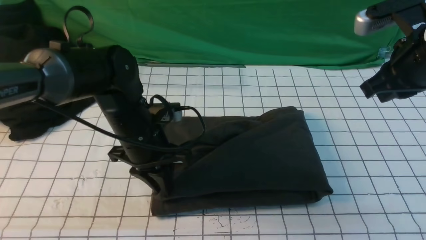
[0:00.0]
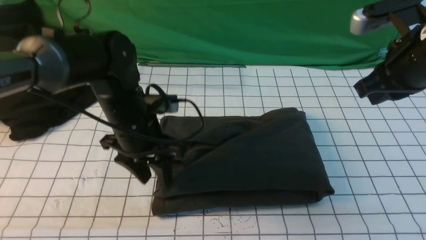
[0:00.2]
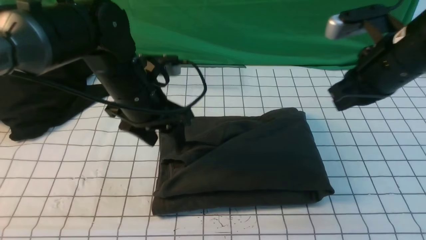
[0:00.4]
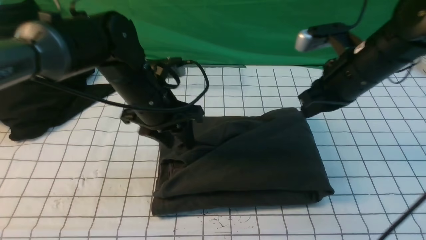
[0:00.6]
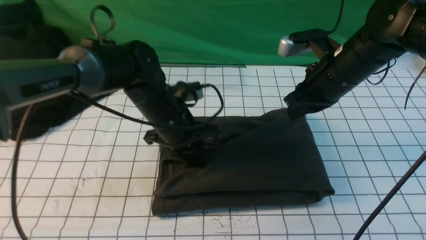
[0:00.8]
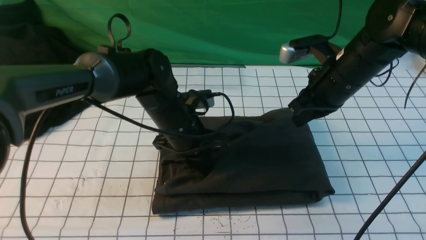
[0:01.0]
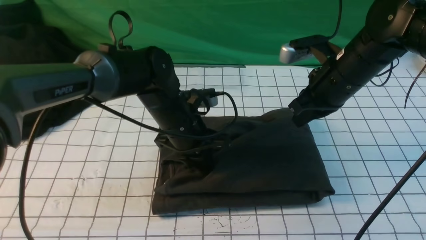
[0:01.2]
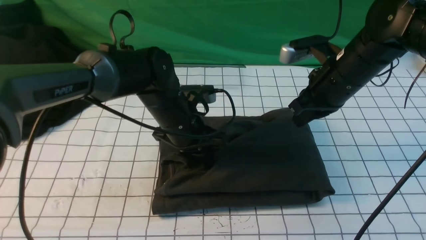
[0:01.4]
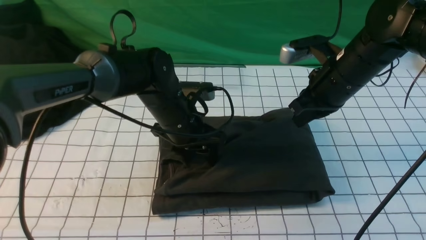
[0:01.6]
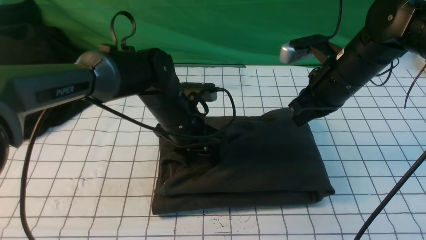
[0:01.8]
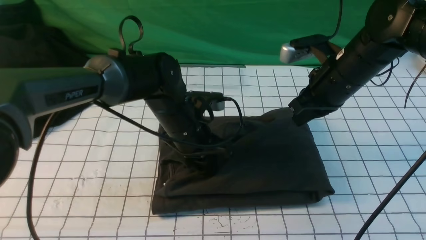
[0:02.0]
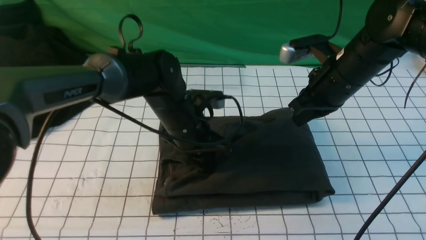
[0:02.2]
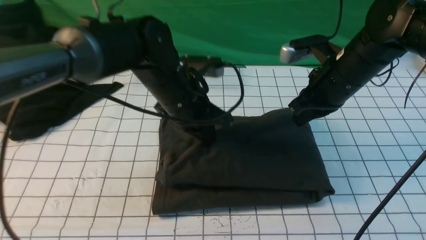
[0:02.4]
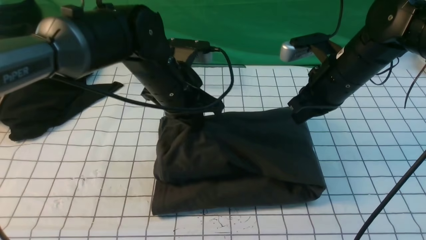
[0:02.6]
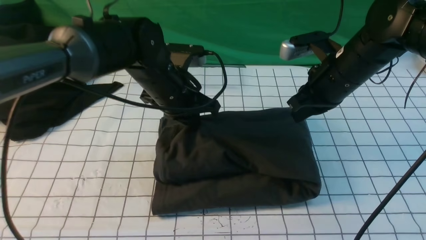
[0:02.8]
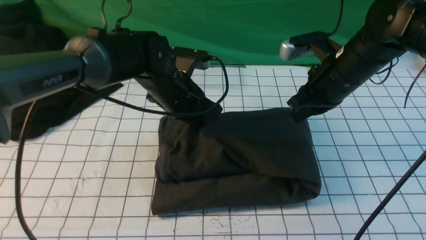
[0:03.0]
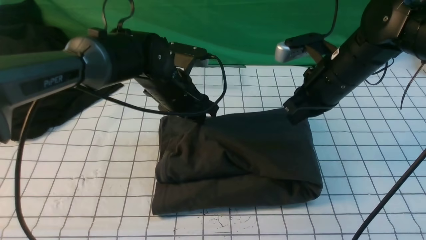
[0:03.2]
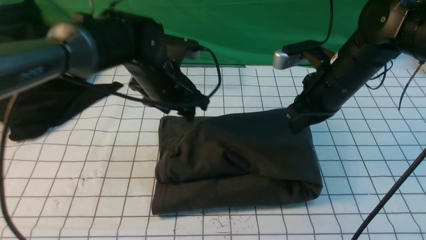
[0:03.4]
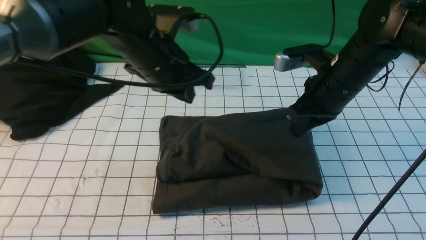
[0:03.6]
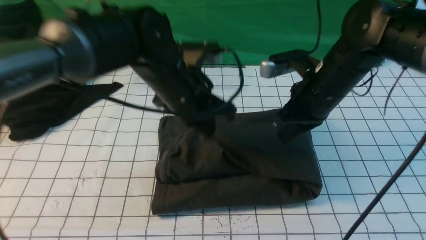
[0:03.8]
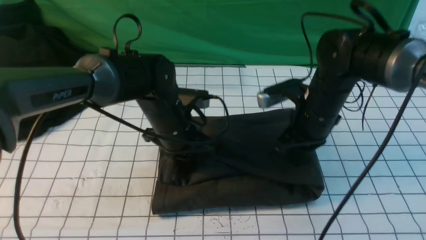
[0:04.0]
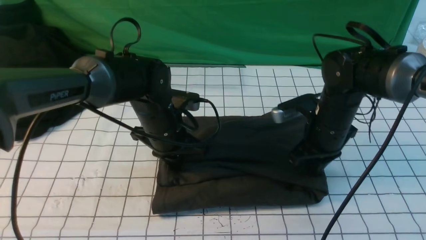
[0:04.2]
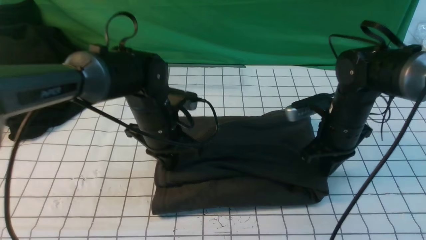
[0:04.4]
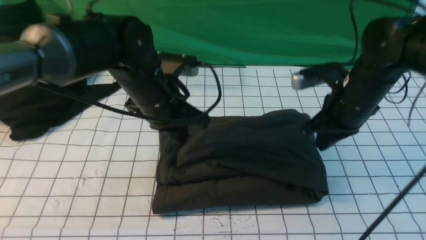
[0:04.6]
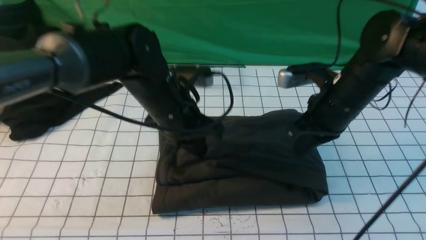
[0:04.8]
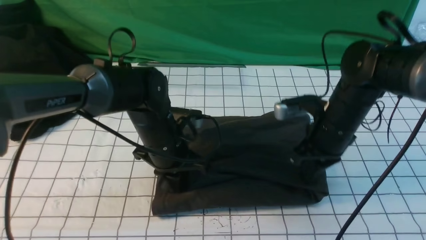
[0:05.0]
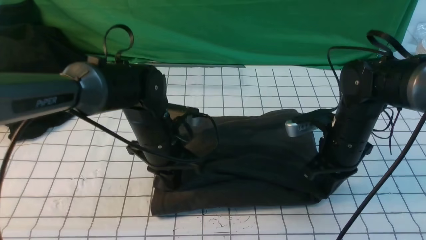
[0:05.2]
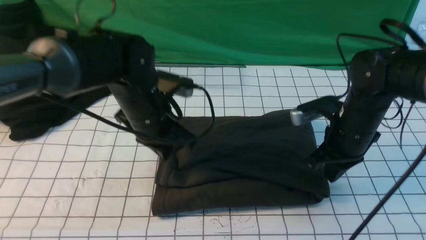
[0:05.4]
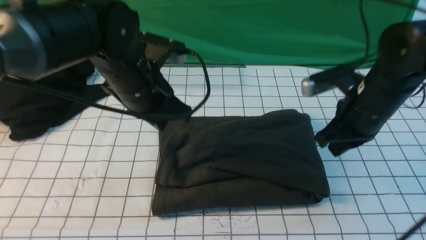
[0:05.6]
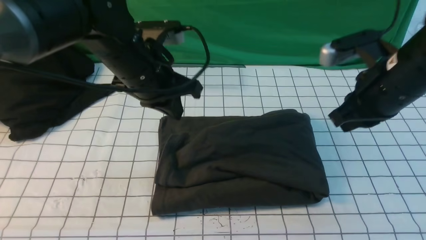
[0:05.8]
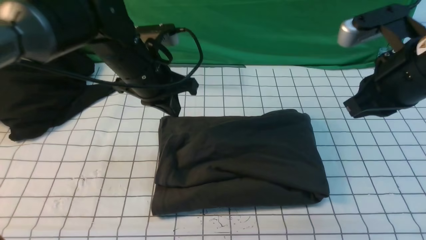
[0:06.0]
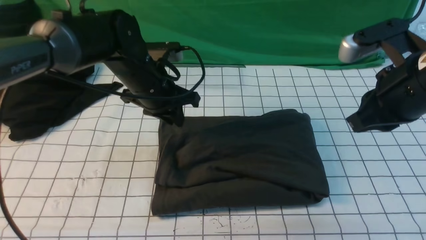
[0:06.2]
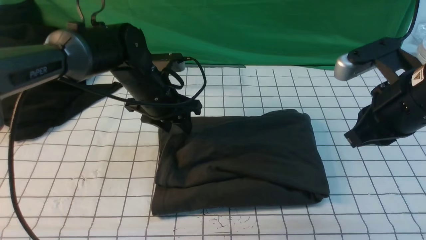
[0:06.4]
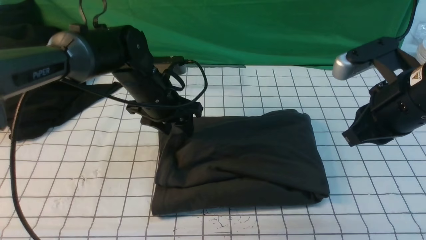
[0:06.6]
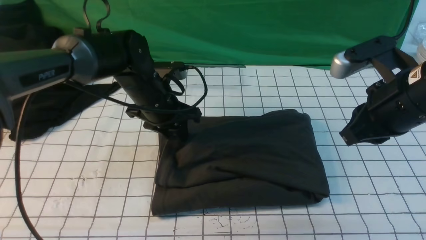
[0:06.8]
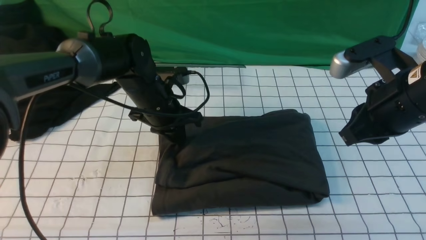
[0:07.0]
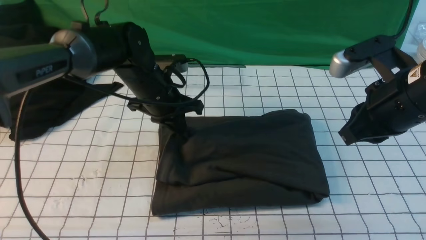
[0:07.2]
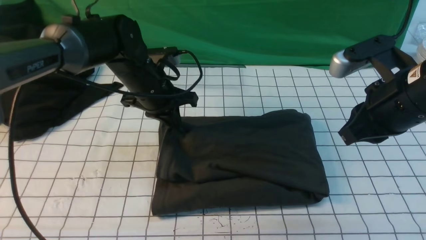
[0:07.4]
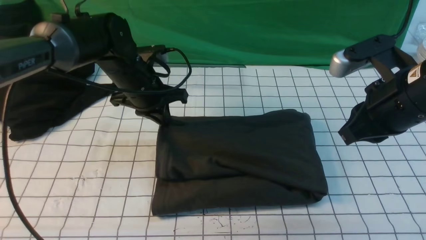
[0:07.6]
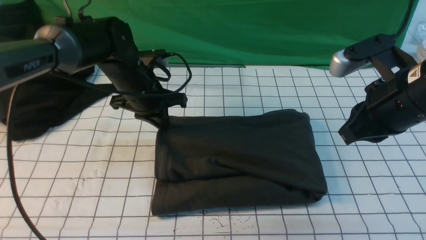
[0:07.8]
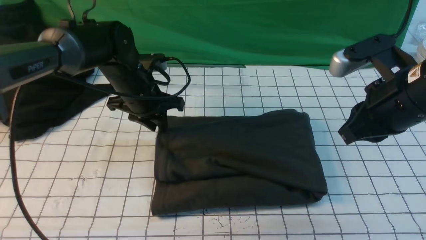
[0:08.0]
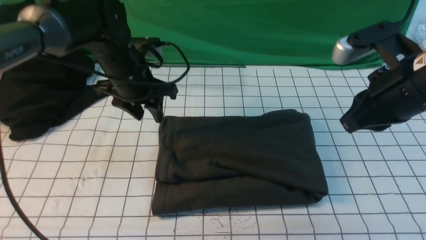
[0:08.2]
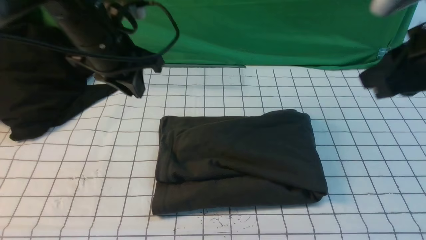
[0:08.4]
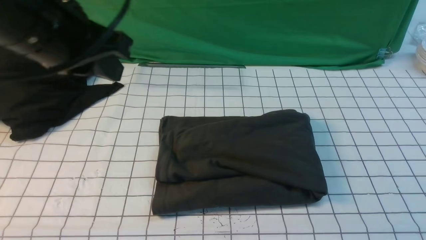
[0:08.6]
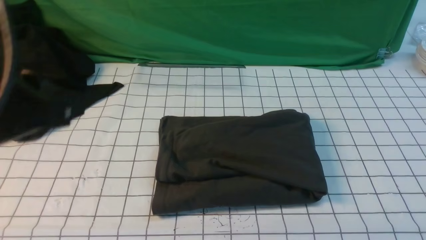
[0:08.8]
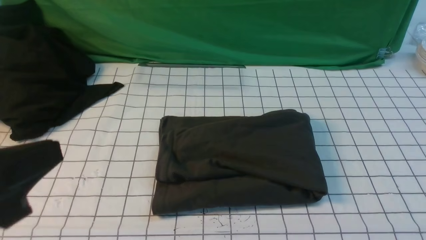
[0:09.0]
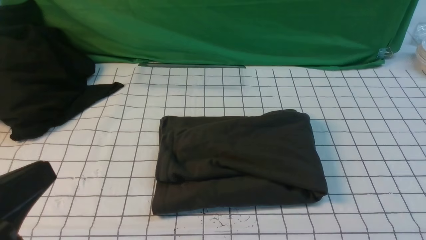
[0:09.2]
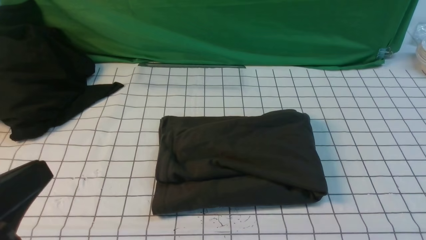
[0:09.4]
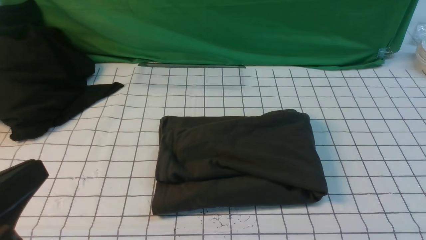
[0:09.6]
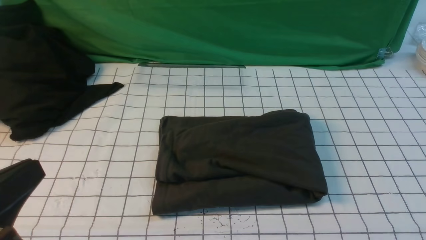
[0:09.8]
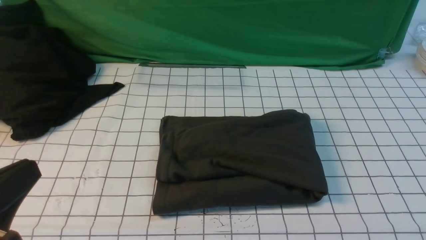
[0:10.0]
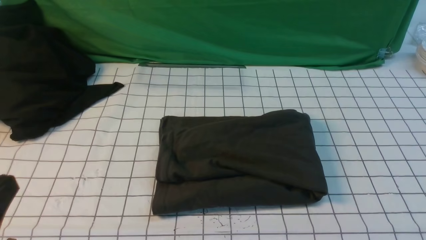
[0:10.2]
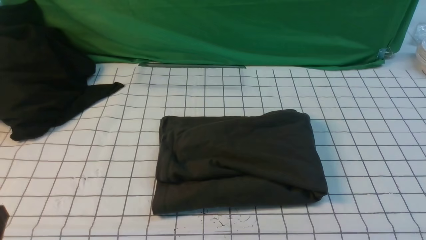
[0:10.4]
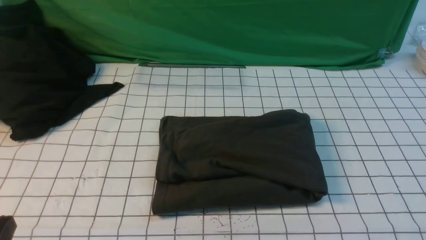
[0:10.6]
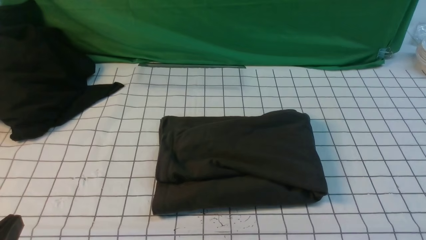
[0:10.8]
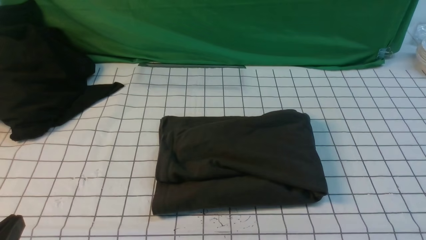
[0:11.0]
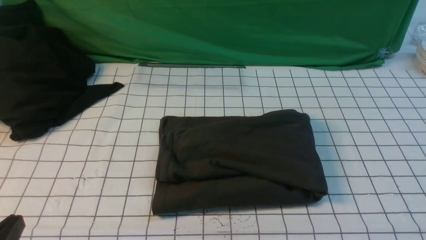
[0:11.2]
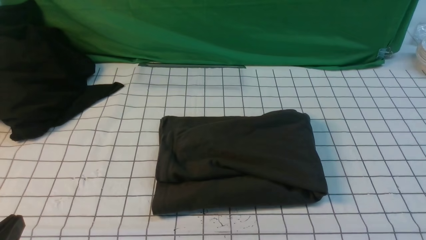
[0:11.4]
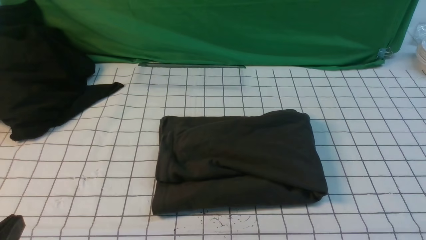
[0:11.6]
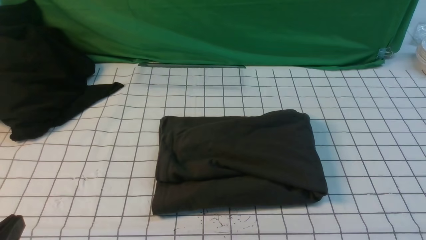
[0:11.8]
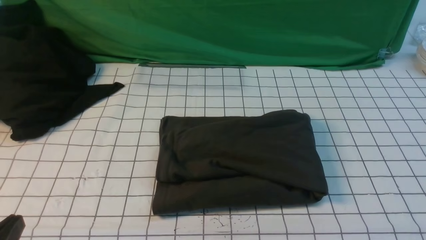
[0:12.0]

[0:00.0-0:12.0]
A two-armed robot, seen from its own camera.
0:00.0 to 0:01.6: The right gripper moves downward, to the left and forward, about 10 cm. The left gripper travels to the right by some 5 cm, and opens.
0:01.6 to 0:03.0: The left gripper closes its fingers.
0:03.0 to 0:04.4: The left gripper goes upward and returns, approximately 5 cm each way, and closes. The right gripper travels downward by some 5 cm.
0:04.4 to 0:06.0: The right gripper shifts about 15 cm upward and backward. Meanwhile the left gripper travels upward by some 5 cm.
0:06.0 to 0:07.6: The left gripper moves some 5 cm, and opens, then closes once more.
0:07.6 to 0:09.0: The left gripper is displaced backward by about 35 cm, and opens, then closes again. Meanwhile the right gripper moves backward and to the right, about 25 cm.
0:09.0 to 0:10.4: The left gripper travels downward by some 15 cm.

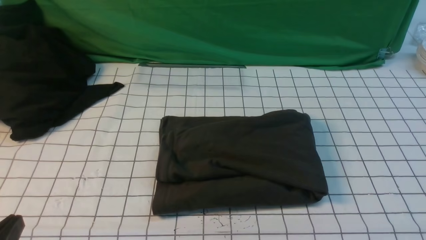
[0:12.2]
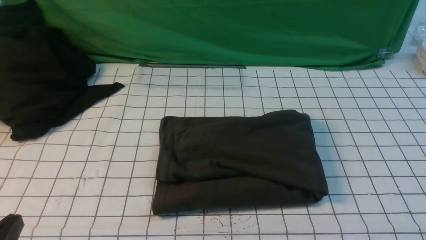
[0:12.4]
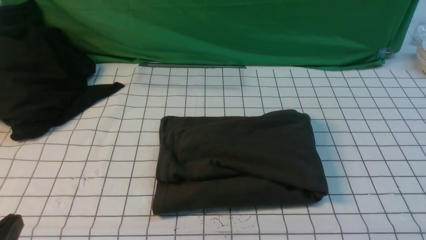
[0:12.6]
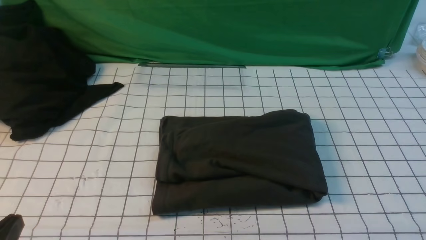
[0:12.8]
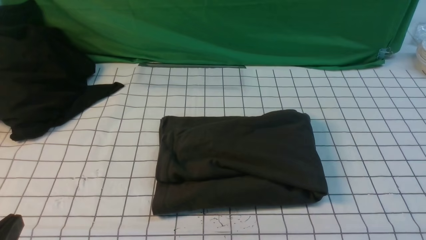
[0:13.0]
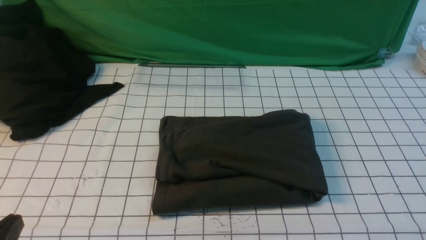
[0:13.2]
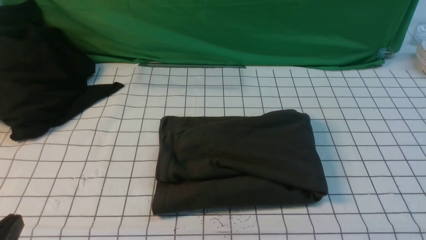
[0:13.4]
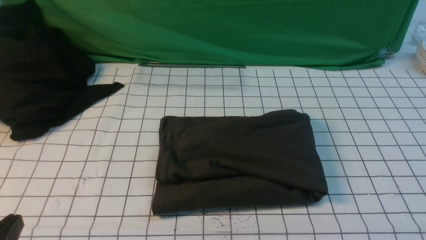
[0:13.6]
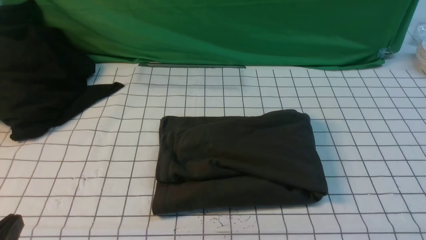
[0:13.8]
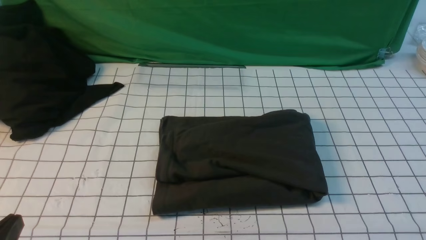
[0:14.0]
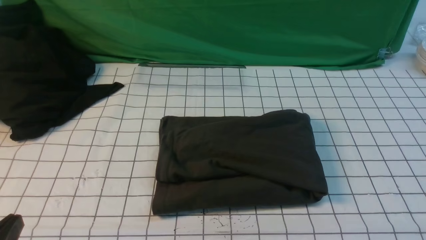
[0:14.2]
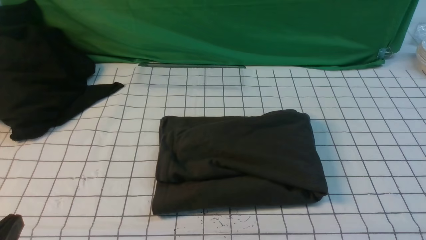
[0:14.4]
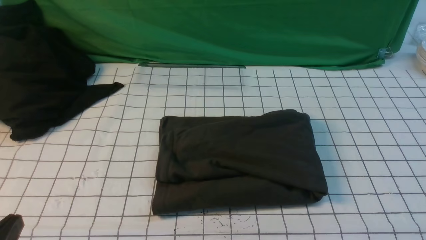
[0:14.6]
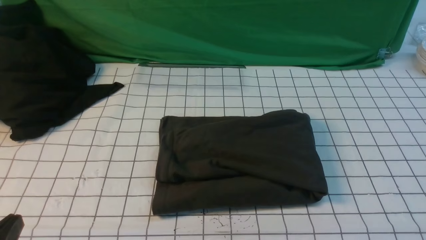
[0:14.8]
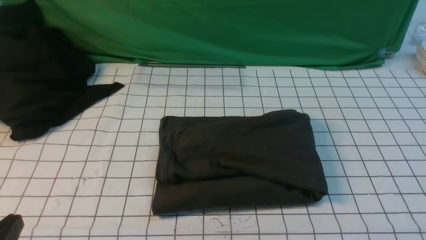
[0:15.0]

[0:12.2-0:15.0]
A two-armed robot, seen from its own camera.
0:13.6 to 0:15.0: Both grippers stay put.

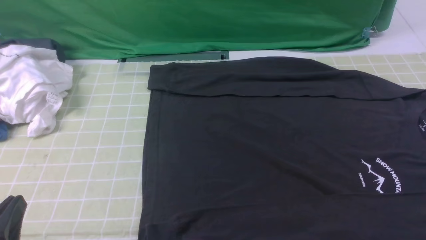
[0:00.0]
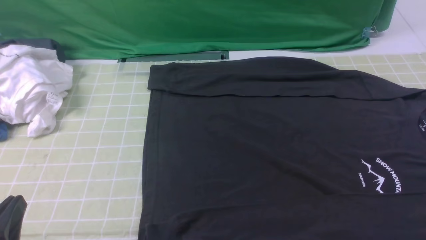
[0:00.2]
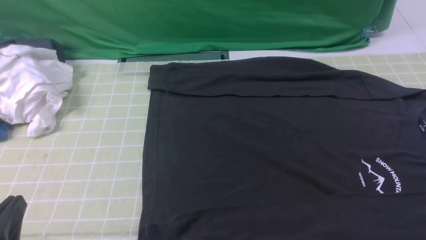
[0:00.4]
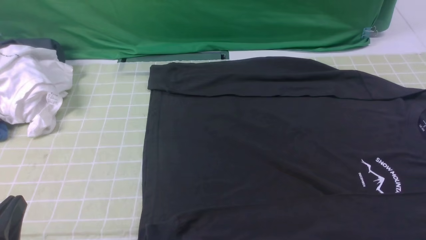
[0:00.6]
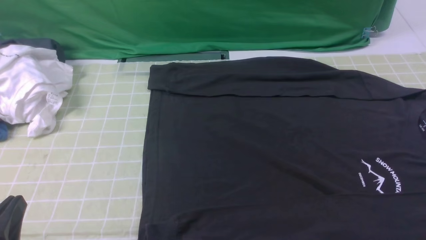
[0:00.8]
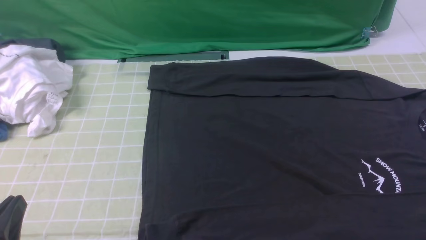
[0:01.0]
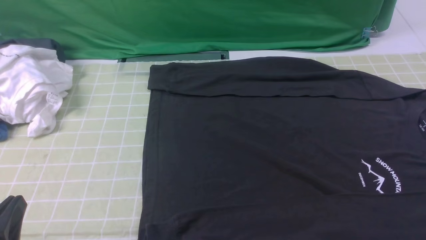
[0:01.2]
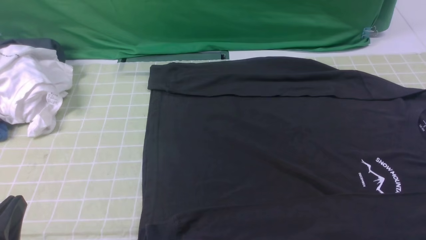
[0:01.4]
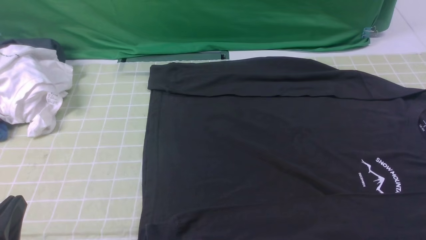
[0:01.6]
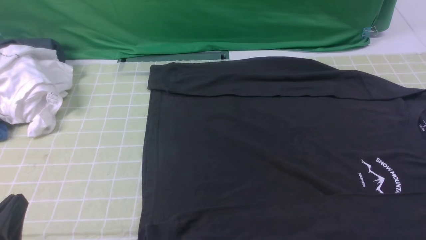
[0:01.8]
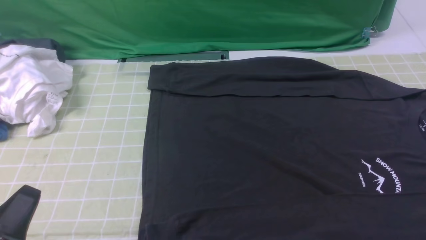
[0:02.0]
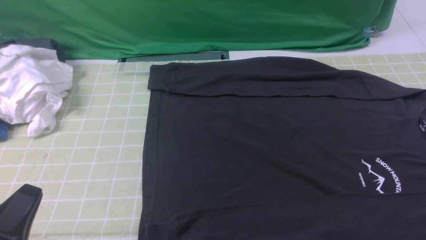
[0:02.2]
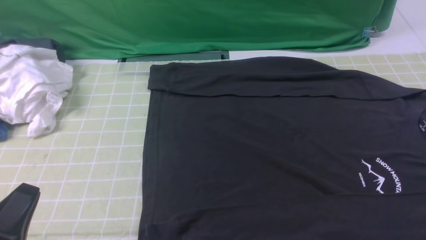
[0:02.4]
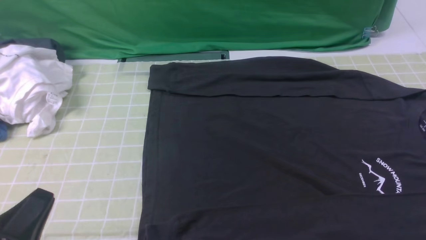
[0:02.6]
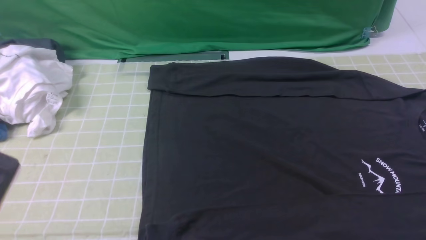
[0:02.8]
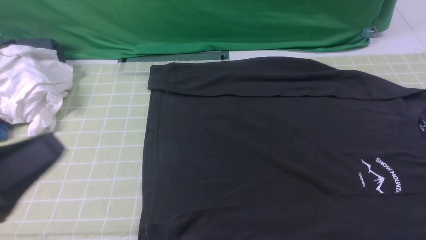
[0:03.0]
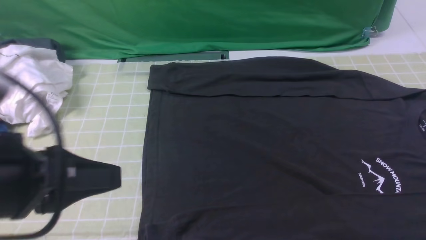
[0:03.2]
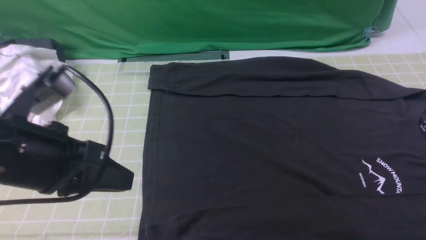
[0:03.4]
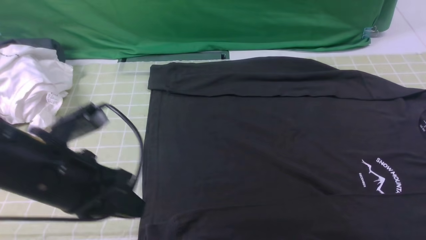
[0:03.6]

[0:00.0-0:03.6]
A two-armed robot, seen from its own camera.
0:01.8 to 0:03.6: The left gripper goes about 15 cm forward, to the right and upward.
